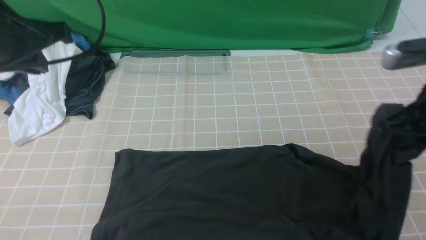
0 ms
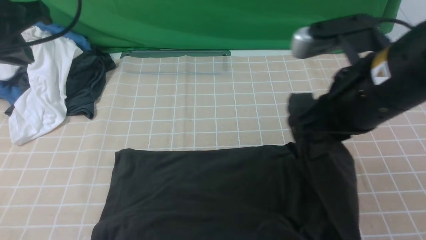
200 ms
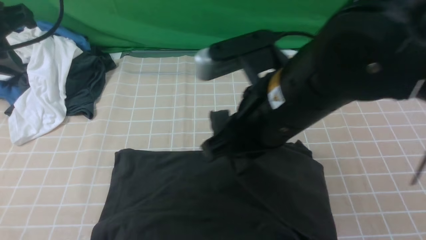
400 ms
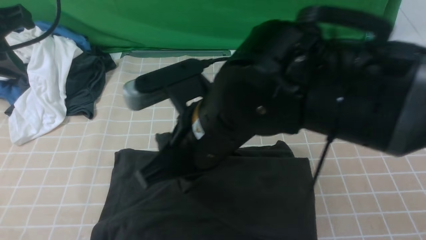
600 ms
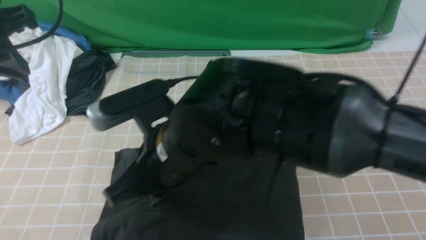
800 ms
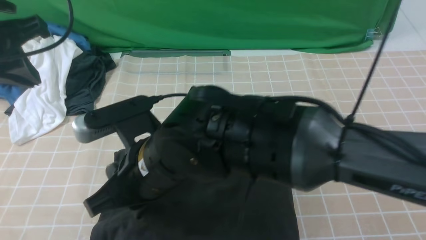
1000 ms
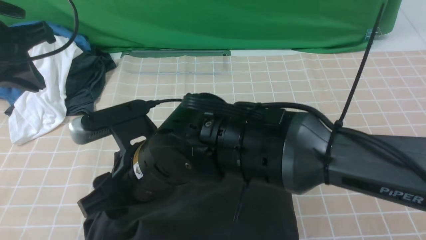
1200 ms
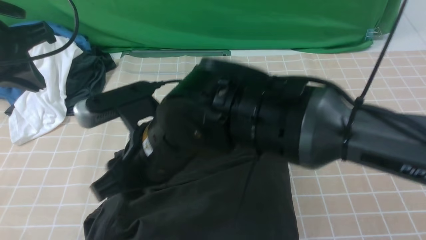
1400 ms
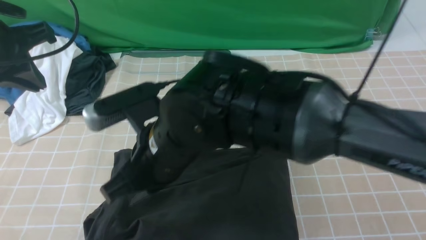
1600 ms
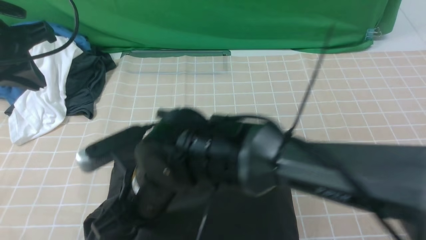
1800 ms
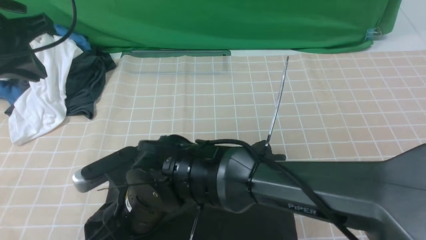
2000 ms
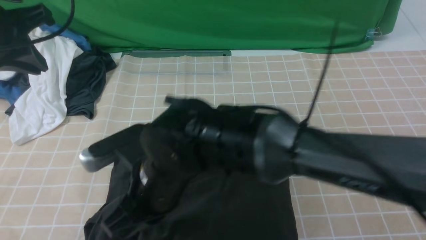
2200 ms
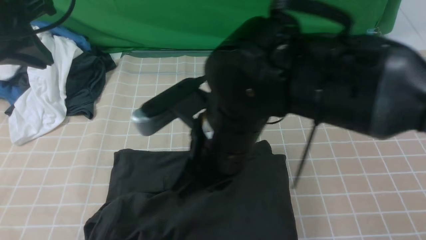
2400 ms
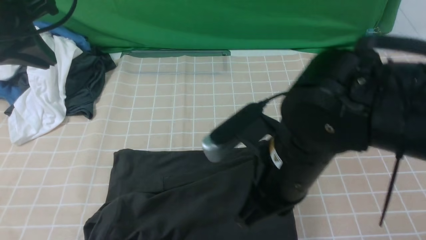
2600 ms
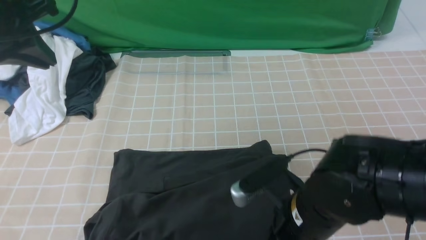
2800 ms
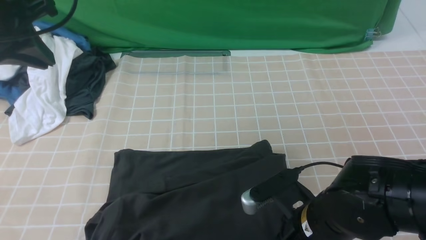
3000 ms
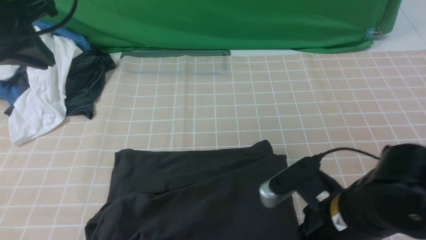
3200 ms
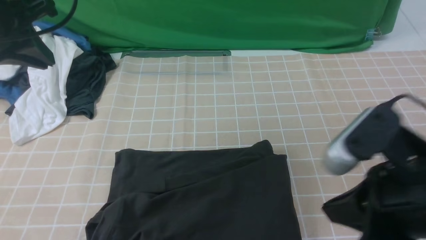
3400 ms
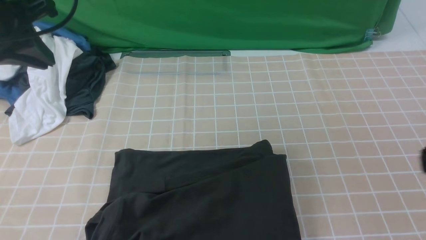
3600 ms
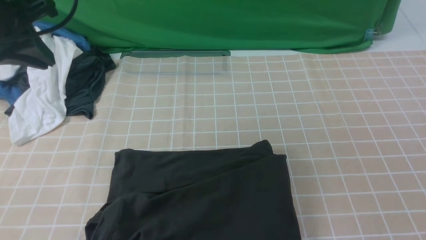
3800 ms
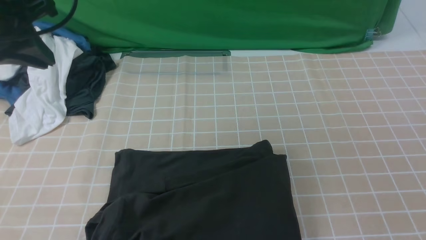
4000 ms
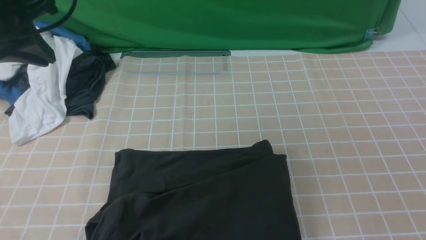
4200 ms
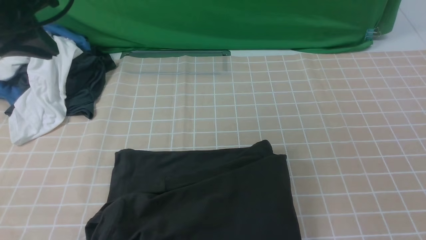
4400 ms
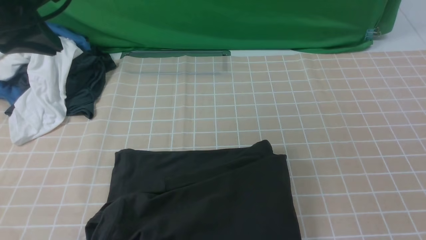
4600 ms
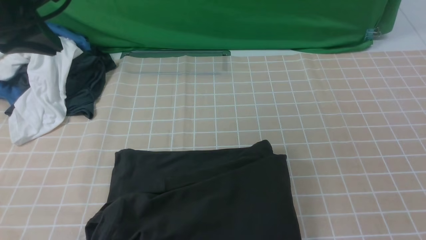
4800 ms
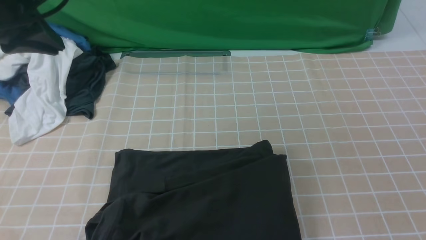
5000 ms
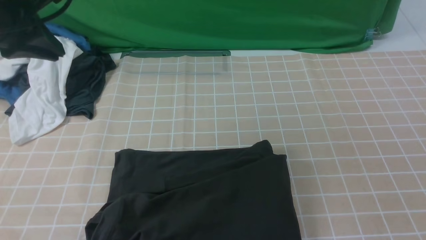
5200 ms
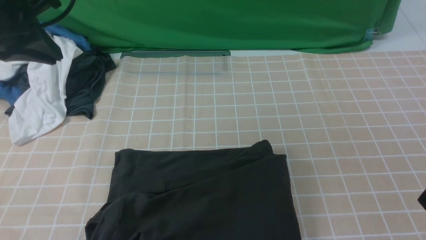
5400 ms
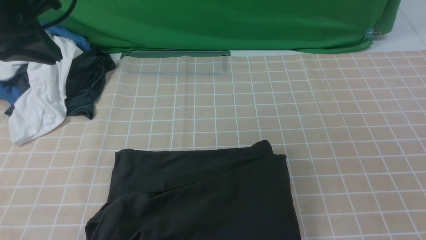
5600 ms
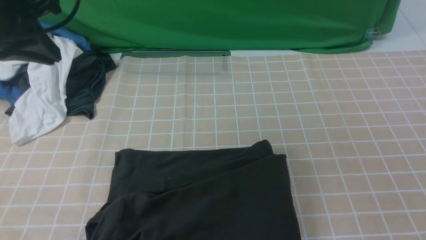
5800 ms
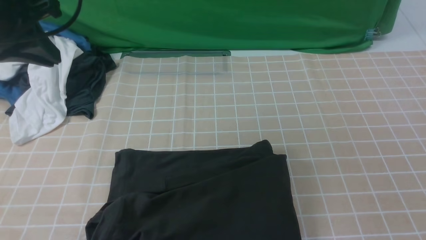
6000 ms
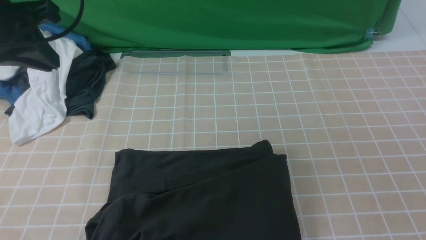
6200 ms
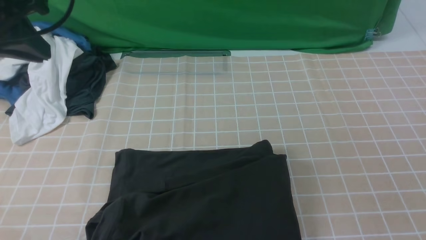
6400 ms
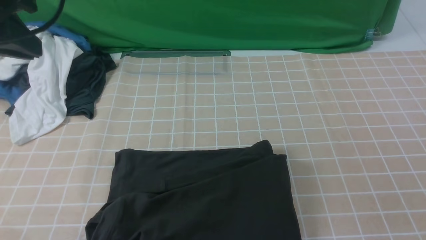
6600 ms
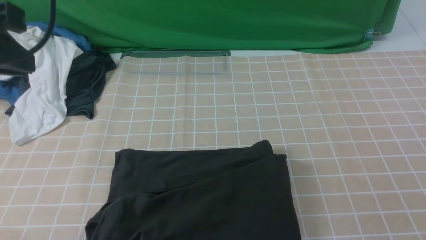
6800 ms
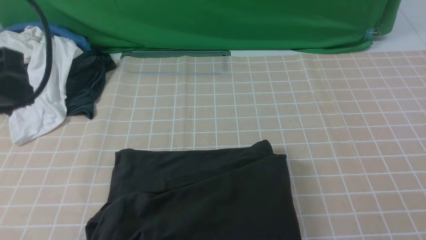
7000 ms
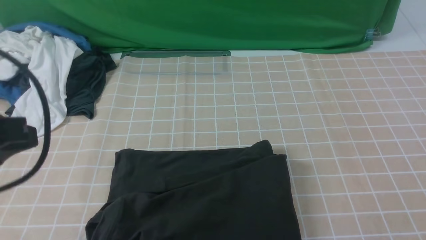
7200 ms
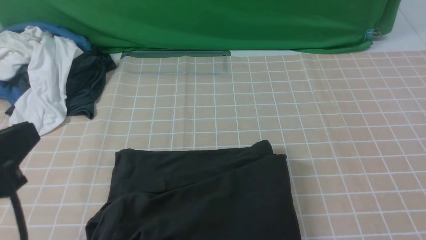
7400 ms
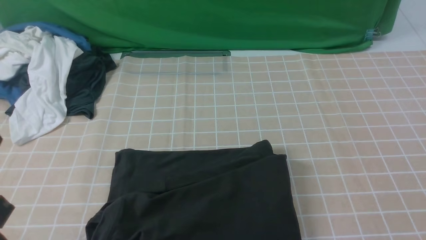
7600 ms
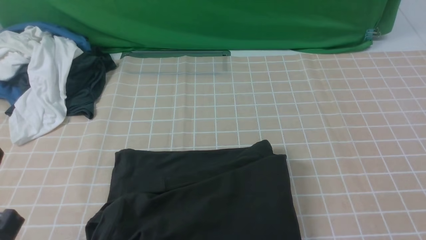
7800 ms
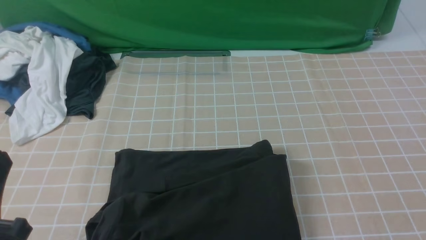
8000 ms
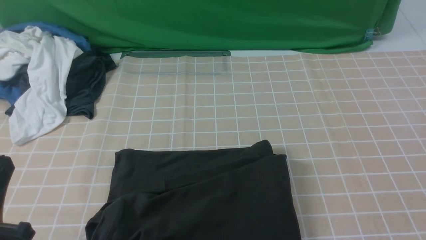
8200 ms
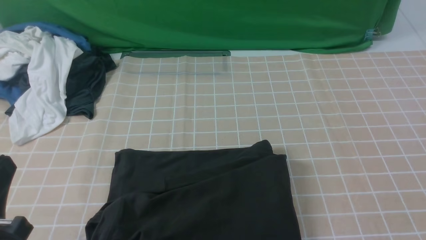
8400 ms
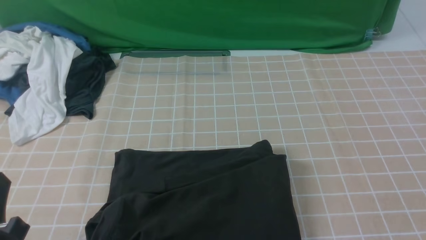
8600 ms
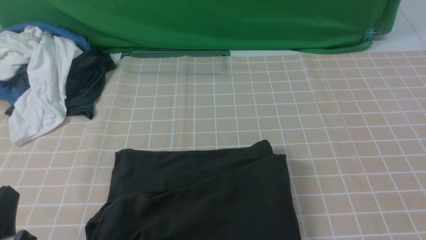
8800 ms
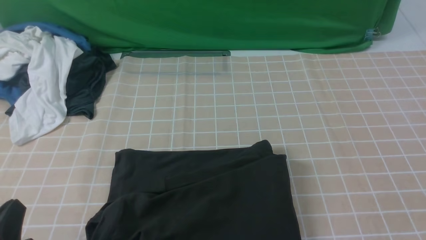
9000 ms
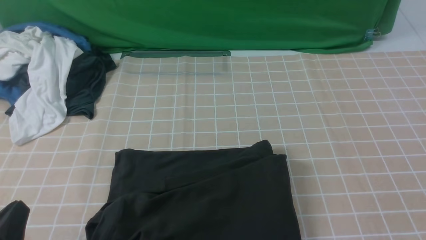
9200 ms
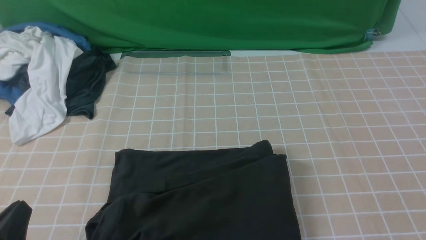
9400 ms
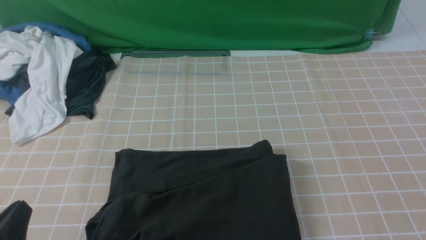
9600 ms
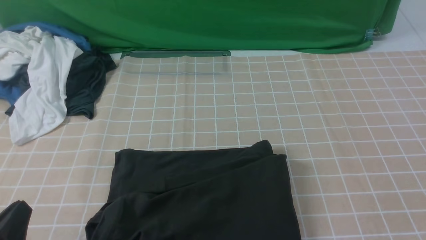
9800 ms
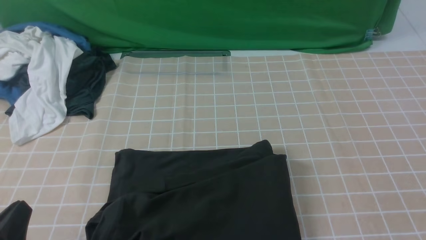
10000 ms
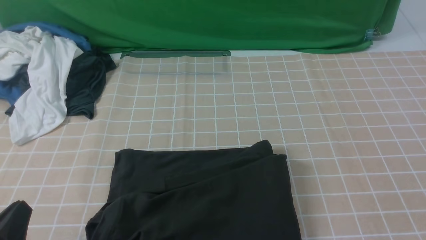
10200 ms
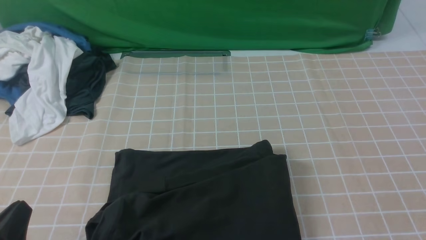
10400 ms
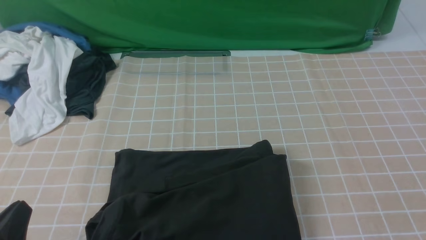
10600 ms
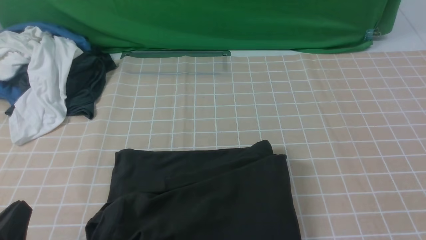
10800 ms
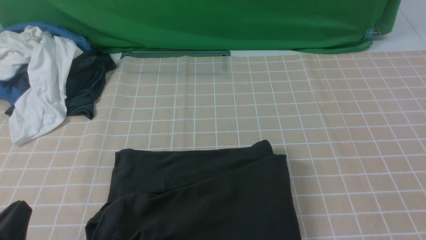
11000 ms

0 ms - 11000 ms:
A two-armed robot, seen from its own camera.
0 ms - 1600 ms: The right gripper travels to the left by approximately 30 cm, and opens and closes again.
1600 ms - 3200 ms: The right gripper heads to the right, covering roughly 20 cm.
3200 ms - 4800 ms: The right gripper moves to the right, backward and upward, about 20 cm.
6200 ms - 7800 ms: The left gripper is displaced backward and downward by roughly 25 cm.
7800 ms - 9400 ms: The left gripper shifts approximately 10 cm downward.
9400 ms - 11000 ms: Neither gripper changes place.
